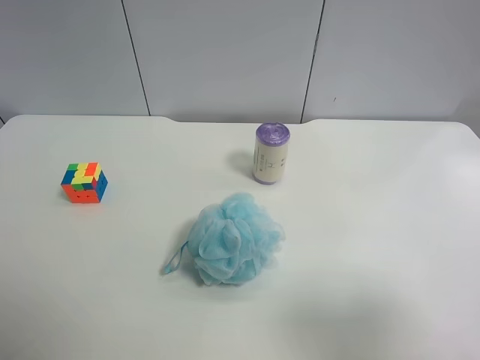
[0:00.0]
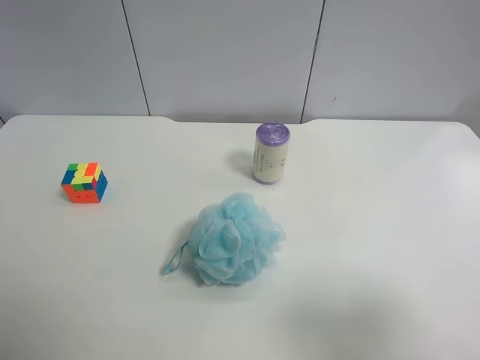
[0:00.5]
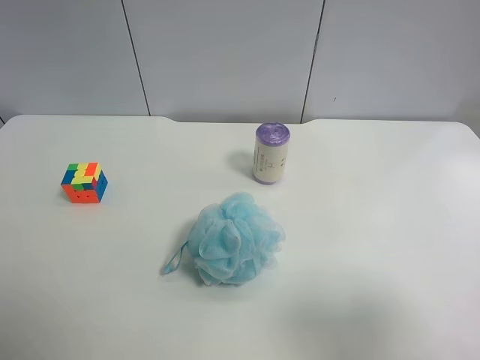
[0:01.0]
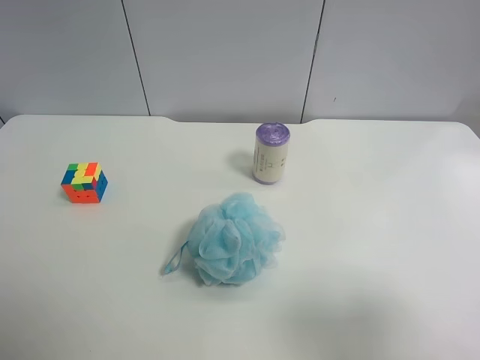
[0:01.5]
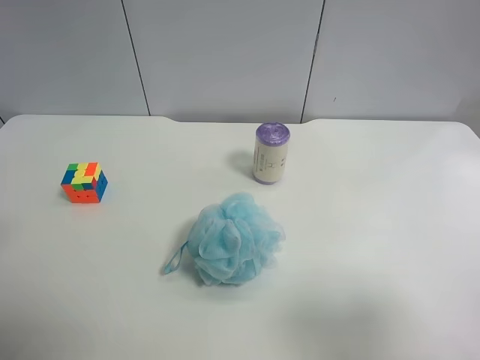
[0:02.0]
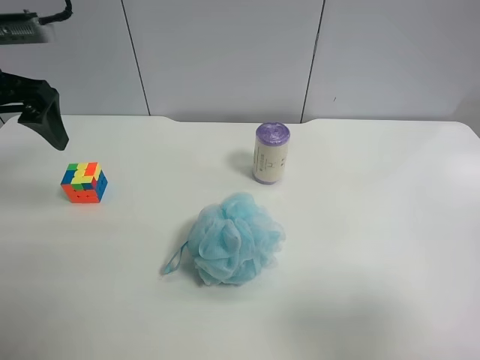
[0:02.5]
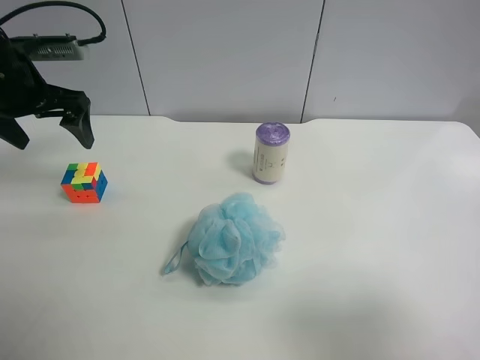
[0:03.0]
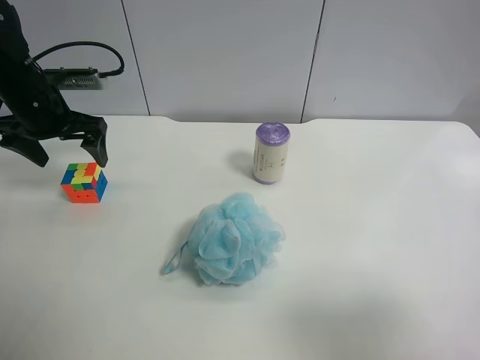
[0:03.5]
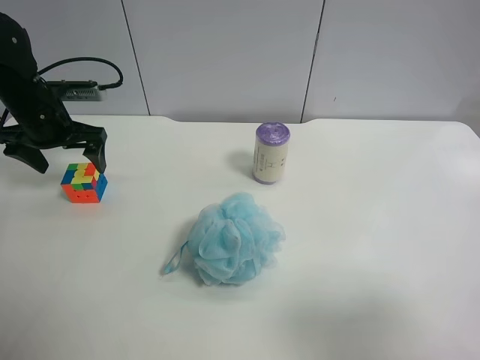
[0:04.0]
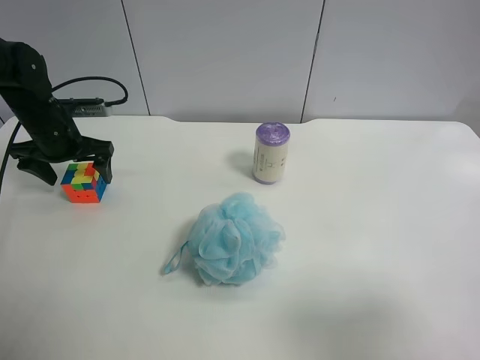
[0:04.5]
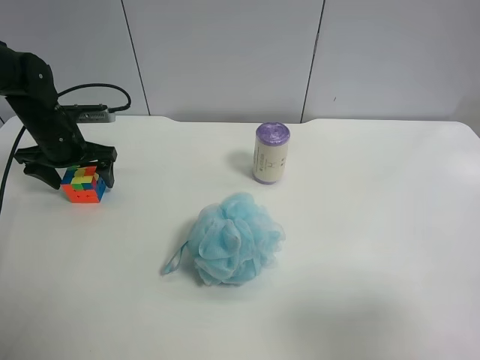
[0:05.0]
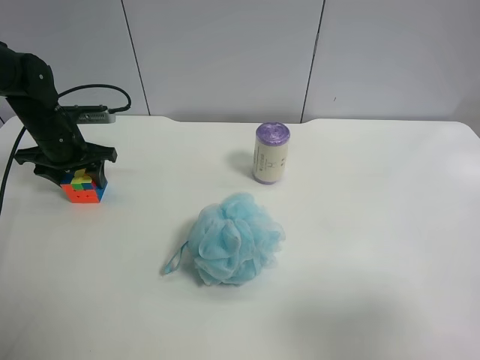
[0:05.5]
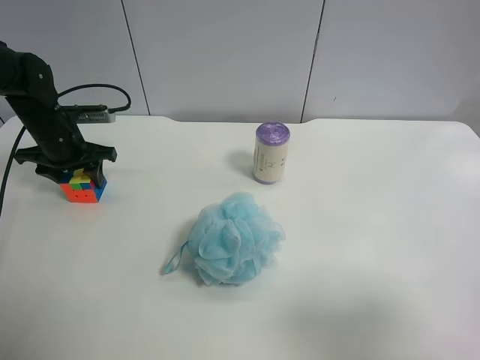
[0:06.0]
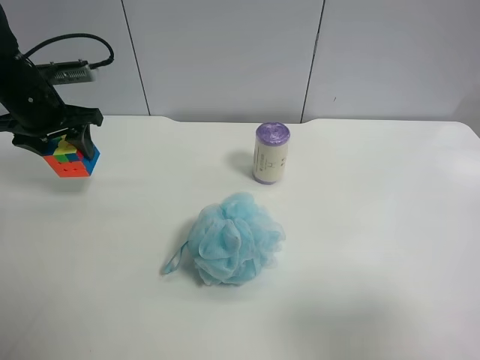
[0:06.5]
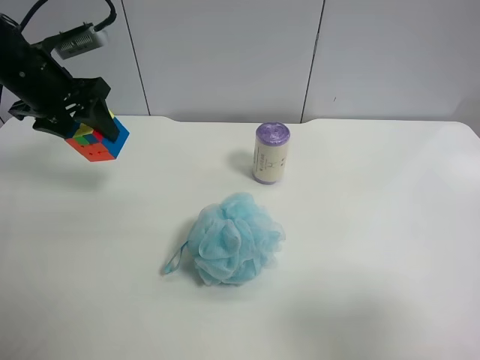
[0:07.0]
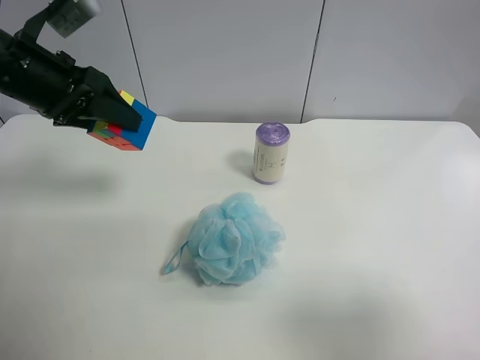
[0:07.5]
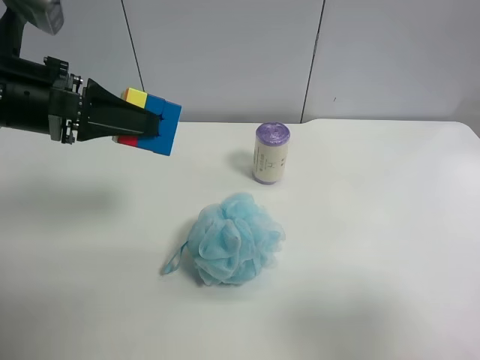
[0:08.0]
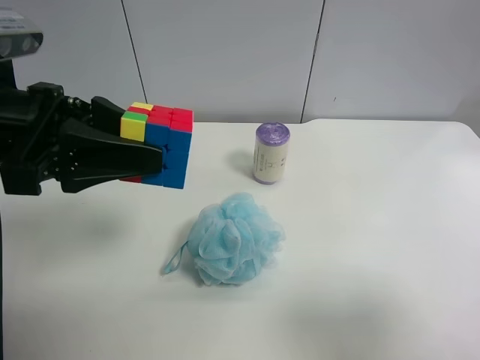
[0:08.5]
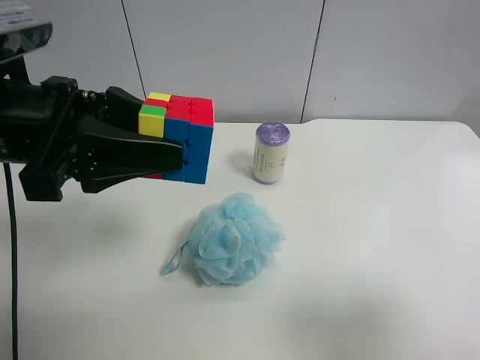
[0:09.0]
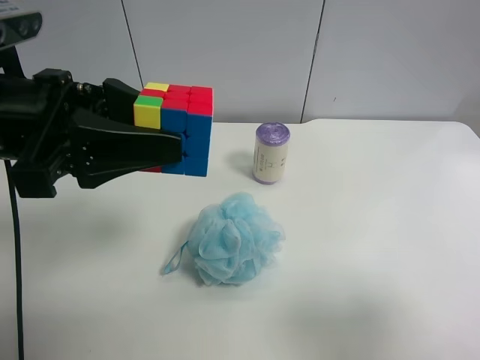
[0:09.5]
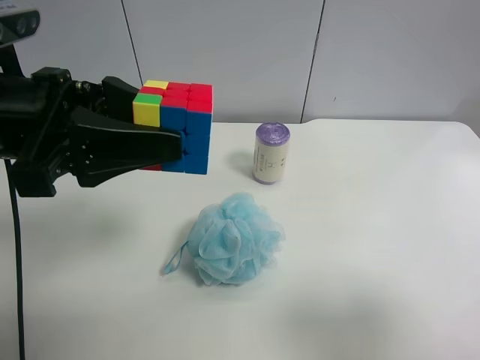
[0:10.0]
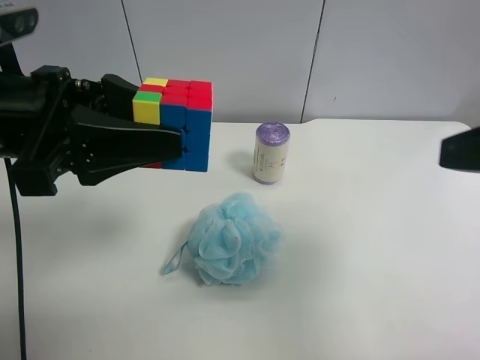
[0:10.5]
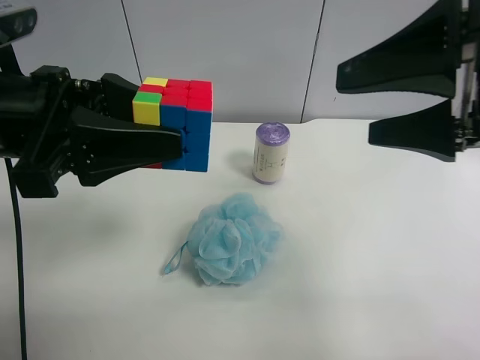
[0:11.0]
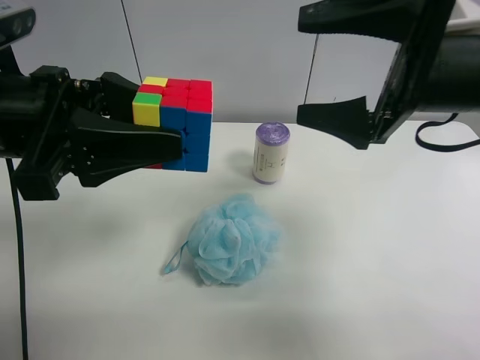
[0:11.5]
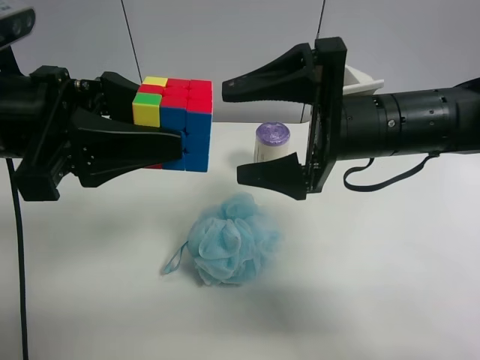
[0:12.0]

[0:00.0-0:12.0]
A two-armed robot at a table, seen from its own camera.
Task of the whole recording: use the left gripper to pick up the item and transfer it from the left gripper to the right gripper.
0:02.0 to 0:04.0: The left gripper travels forward and downward by some 25 cm.
0:04.0 to 0:06.0: The left gripper closes up.
0:06.0 to 0:08.0: The left gripper moves backward, upward and to the right, roughly 20 cm.
0:08.0 to 0:10.0: The left gripper shifts by some 5 cm.
0:10.0 to 0:12.0: The right gripper is displaced forward and to the left by roughly 30 cm.

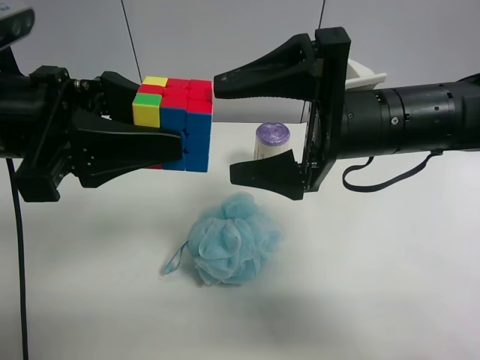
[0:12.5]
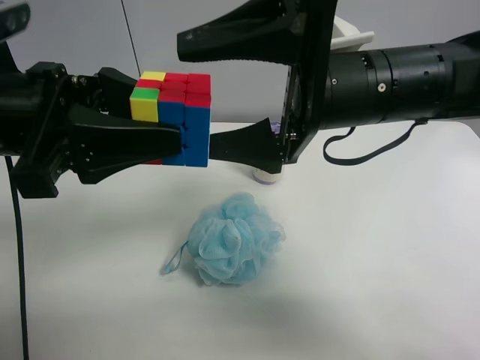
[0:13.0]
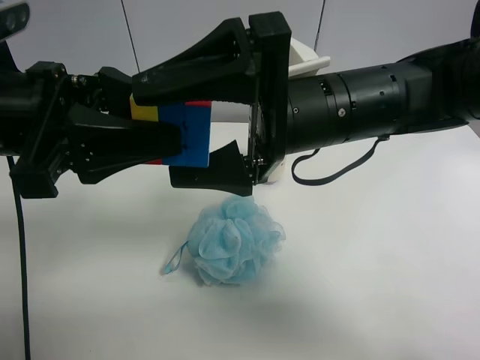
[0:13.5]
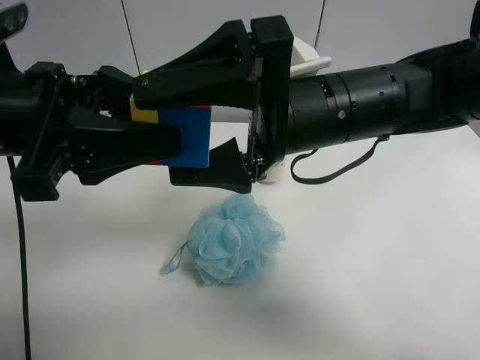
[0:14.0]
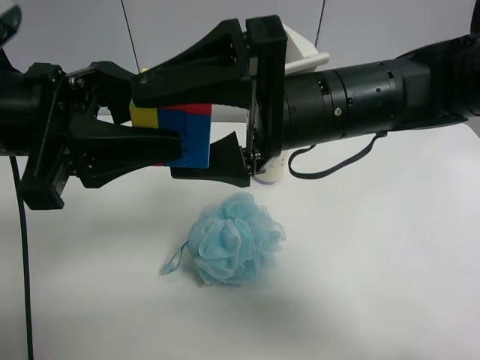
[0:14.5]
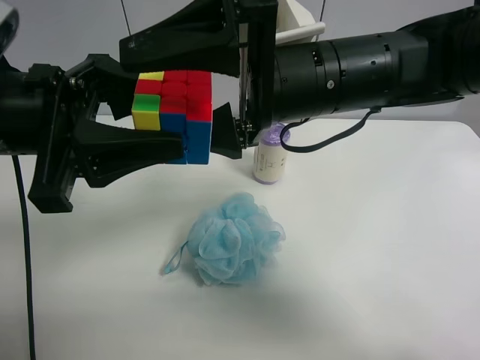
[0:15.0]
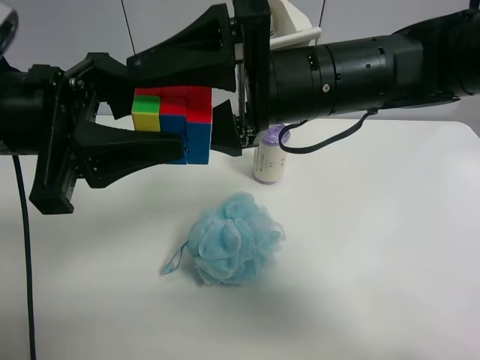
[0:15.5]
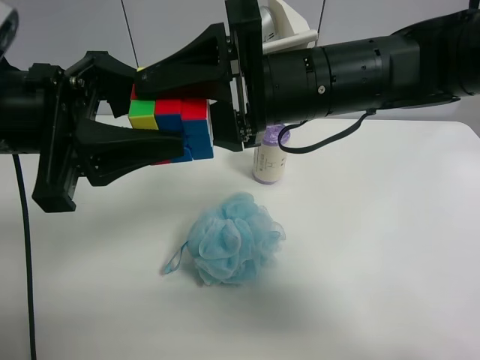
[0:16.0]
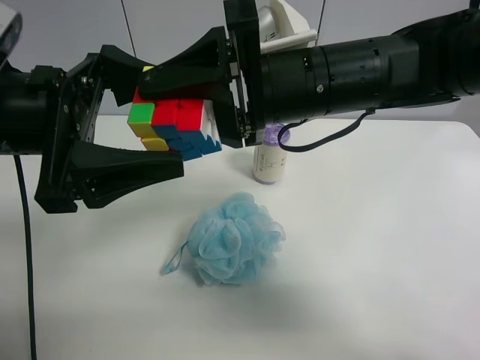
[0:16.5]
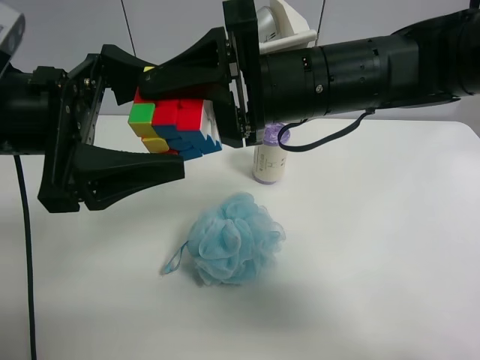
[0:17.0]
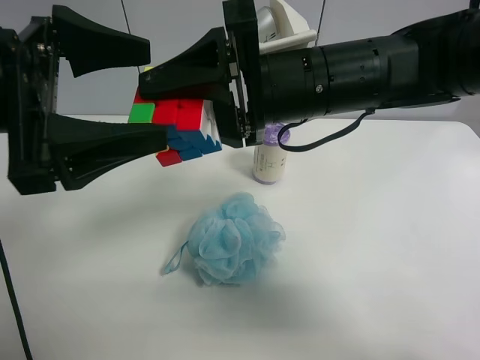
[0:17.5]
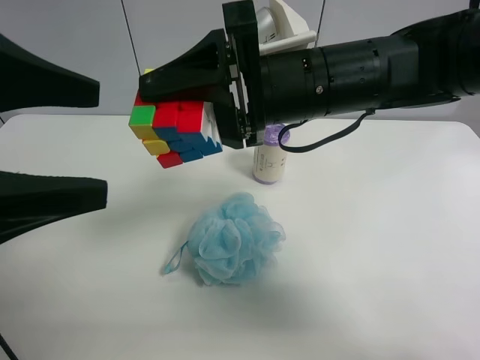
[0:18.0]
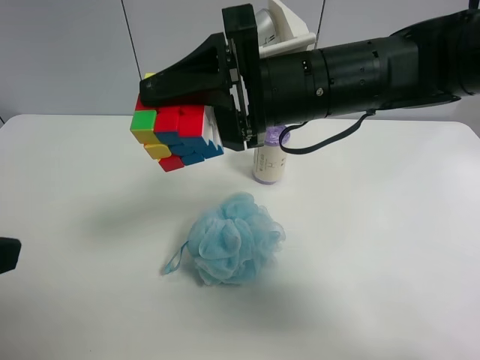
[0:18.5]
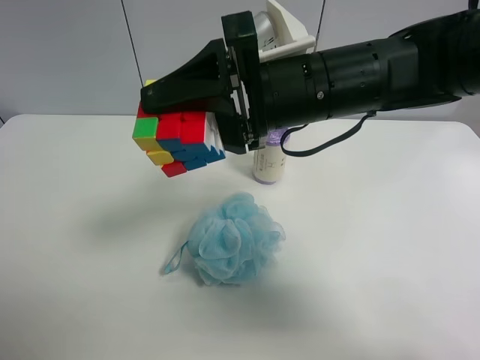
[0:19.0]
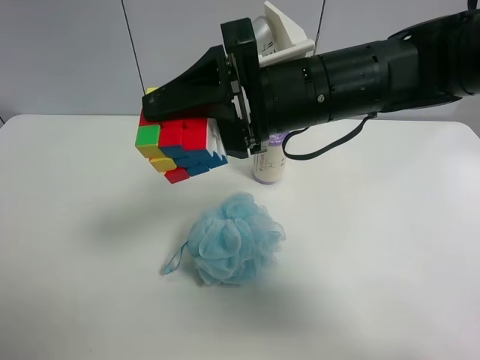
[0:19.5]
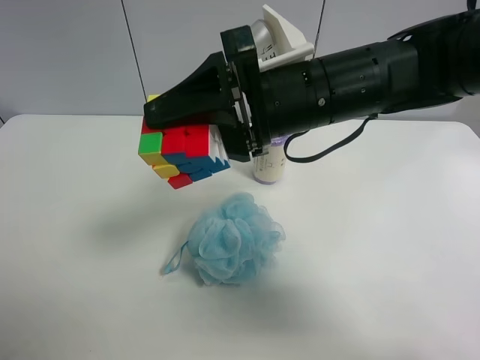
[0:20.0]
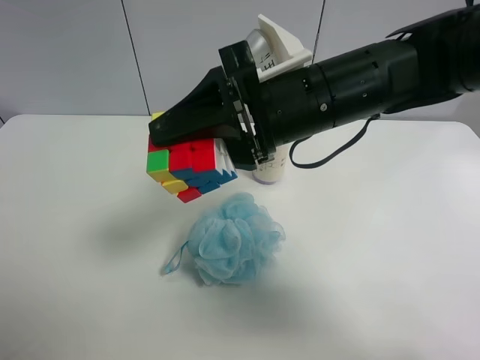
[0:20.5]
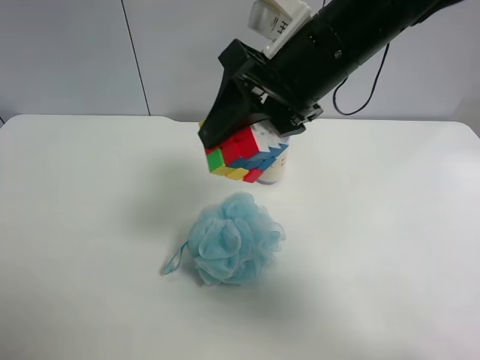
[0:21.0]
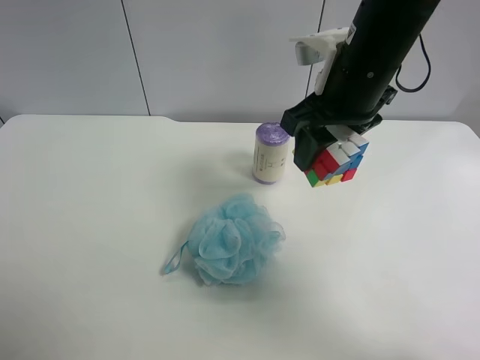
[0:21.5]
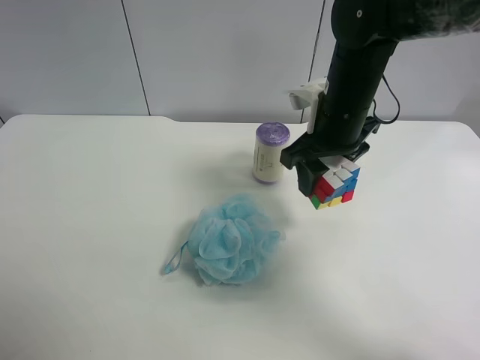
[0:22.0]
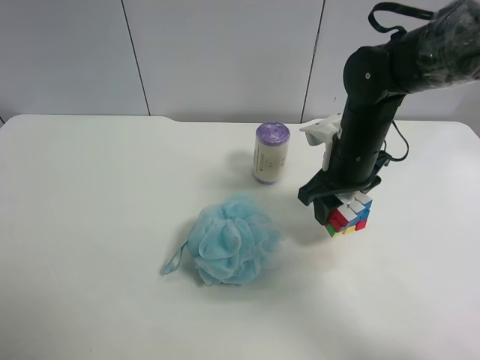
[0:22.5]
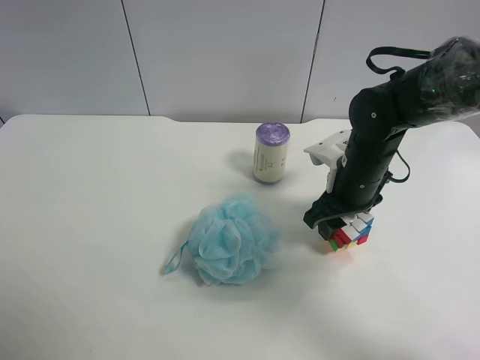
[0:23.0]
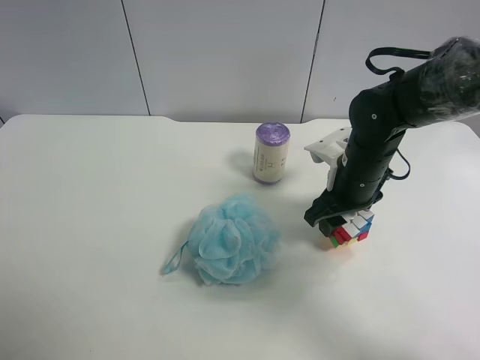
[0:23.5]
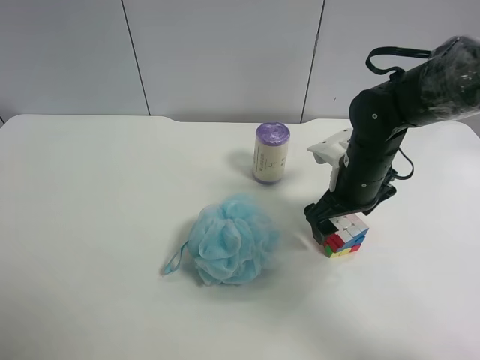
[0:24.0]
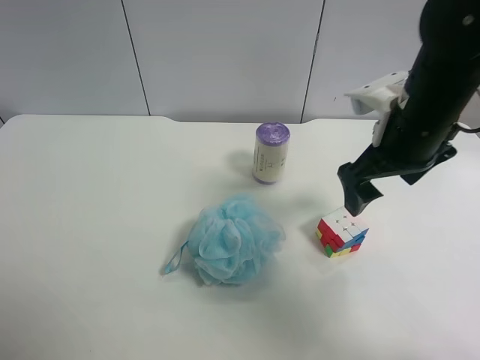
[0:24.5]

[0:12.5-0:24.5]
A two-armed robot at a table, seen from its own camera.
Task of the whole recording: use the left gripper to pick up the item and transfer it from the left gripper to the right gripper.
0:12.5 to 0:14.5: The right gripper moves to the left, about 5 cm.
0:14.5 to 0:16.5: The right gripper closes up. Meanwhile the left gripper opens up.
0:16.5 to 0:18.5: The left gripper is displaced backward and to the left by about 15 cm.
0:18.5 to 0:20.5: The left gripper travels backward and to the left by about 10 cm.
0:20.5 to 0:22.5: The right gripper shifts some 15 cm downward, to the right and forward.
0:22.5 to 0:24.5: The right gripper heads upward and backward, covering roughly 10 cm, and opens.

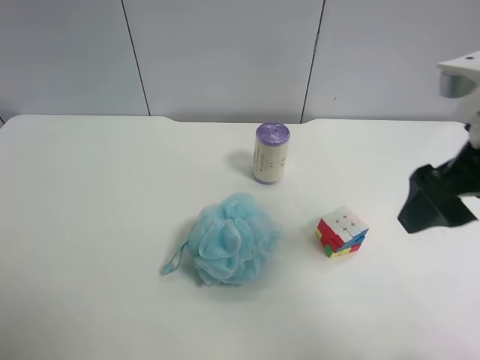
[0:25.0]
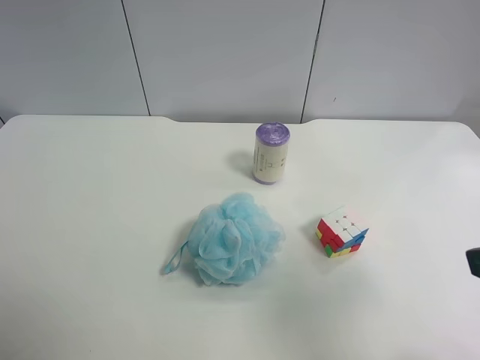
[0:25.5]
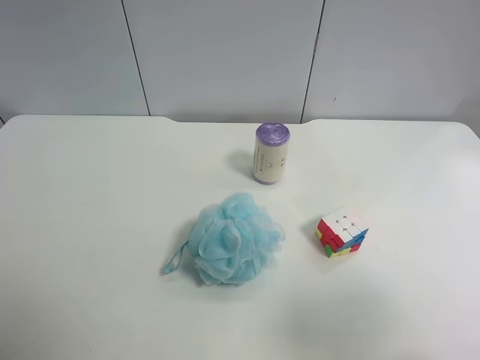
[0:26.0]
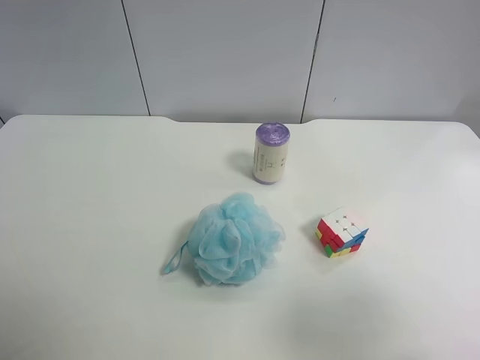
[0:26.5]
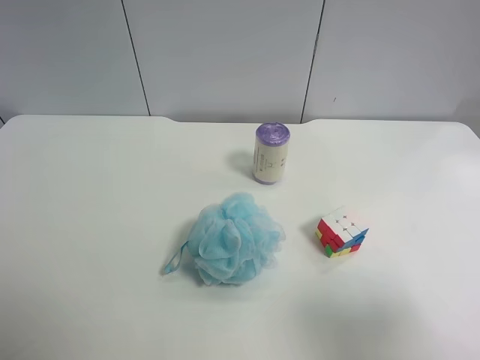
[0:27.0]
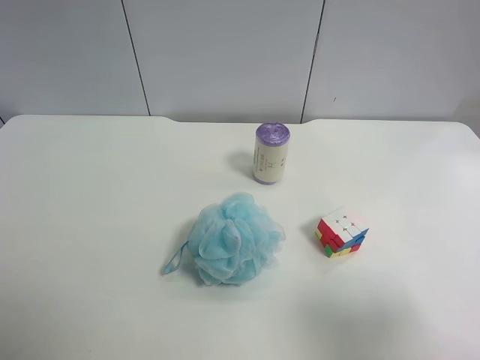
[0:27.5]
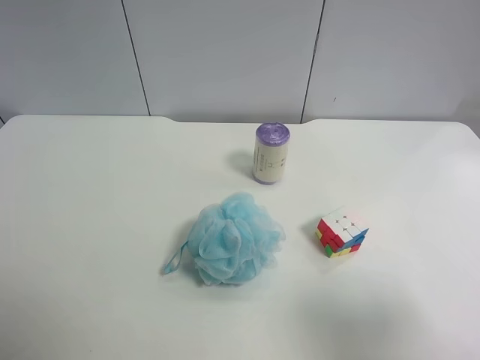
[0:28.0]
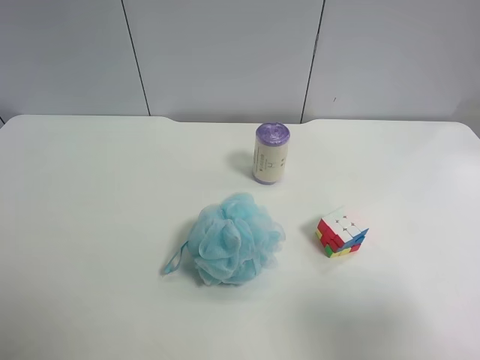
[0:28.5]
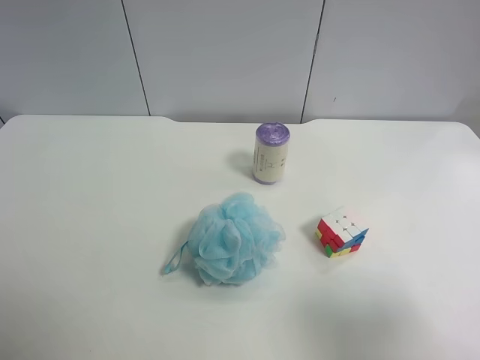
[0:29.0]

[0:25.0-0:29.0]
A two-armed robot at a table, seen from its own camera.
Task of the whole recording: use the left gripper to pick up the item and transfer it from the left gripper to the right gripper.
0:25.0 to 0:27.0: The right gripper goes roughly 15 cm backward.
0:27.0 to 0:29.0: The two grippers keep their place.
